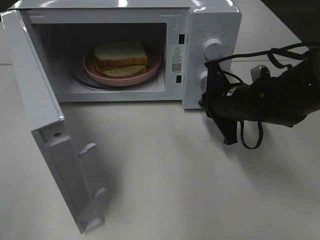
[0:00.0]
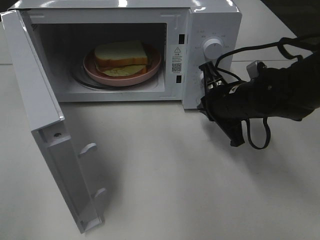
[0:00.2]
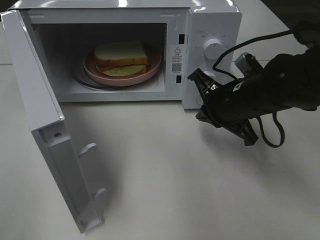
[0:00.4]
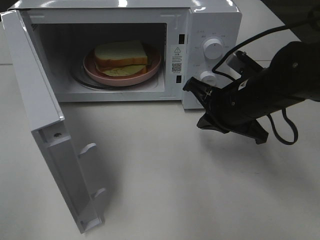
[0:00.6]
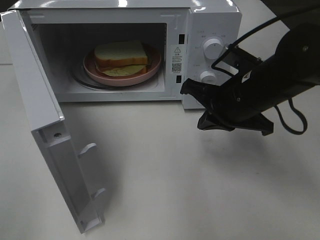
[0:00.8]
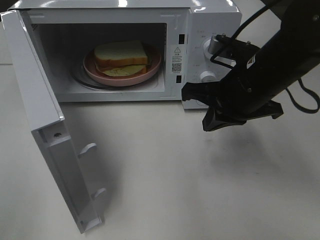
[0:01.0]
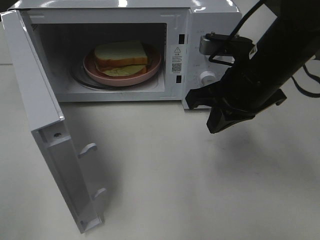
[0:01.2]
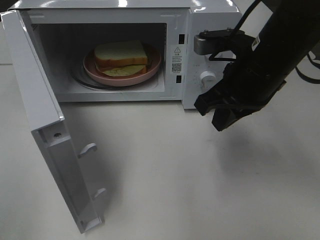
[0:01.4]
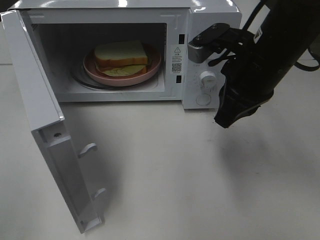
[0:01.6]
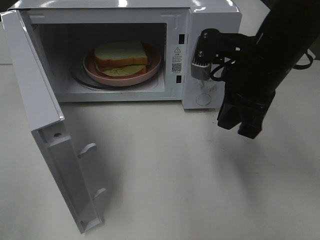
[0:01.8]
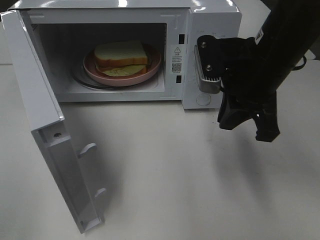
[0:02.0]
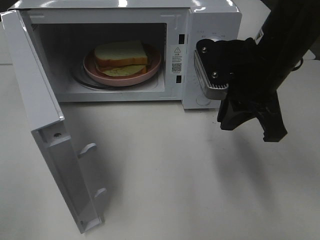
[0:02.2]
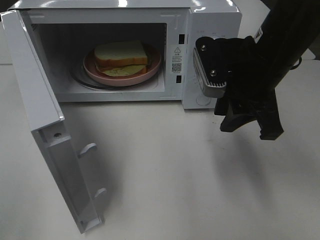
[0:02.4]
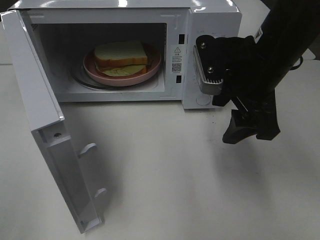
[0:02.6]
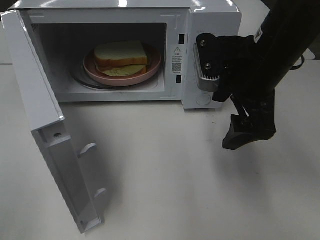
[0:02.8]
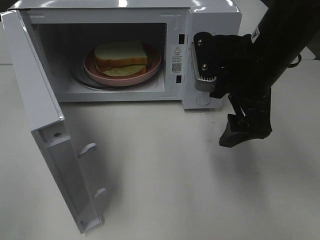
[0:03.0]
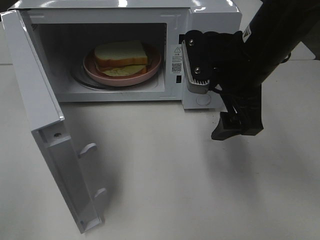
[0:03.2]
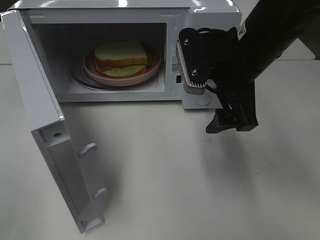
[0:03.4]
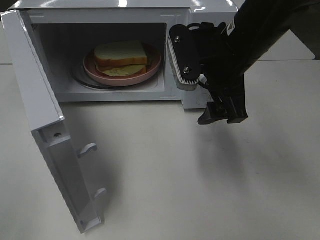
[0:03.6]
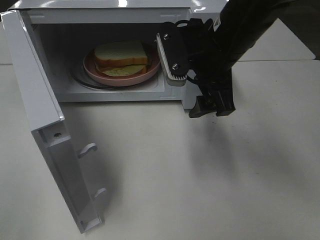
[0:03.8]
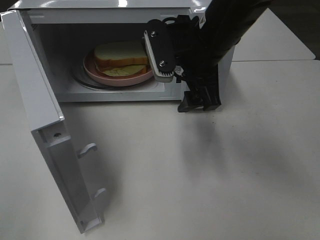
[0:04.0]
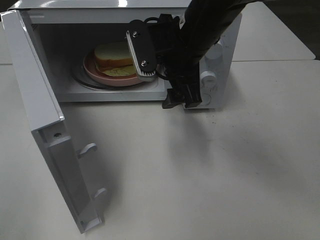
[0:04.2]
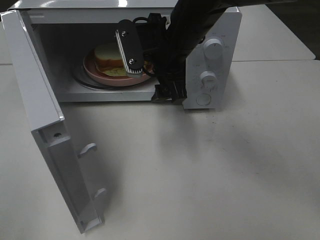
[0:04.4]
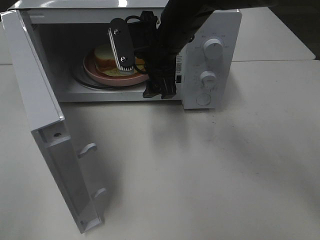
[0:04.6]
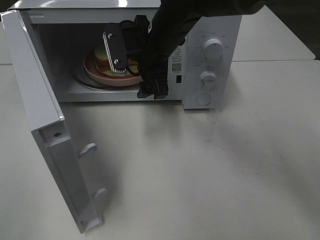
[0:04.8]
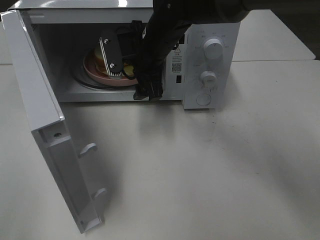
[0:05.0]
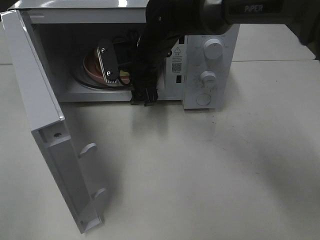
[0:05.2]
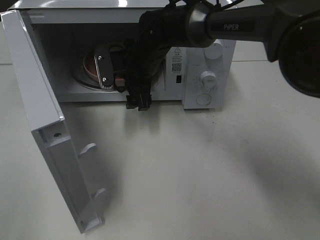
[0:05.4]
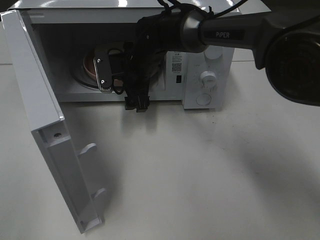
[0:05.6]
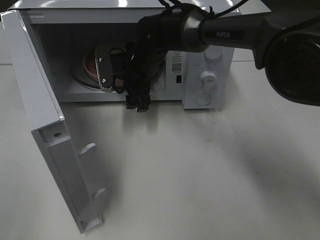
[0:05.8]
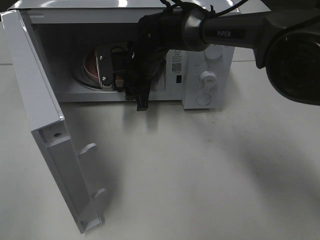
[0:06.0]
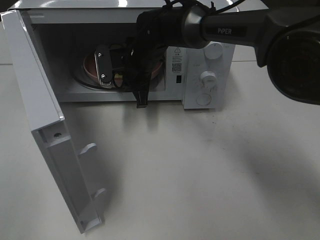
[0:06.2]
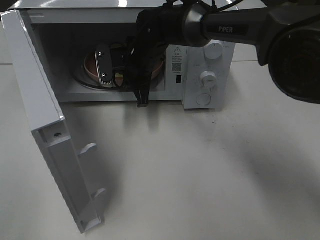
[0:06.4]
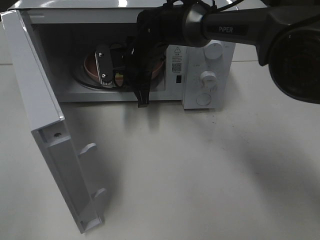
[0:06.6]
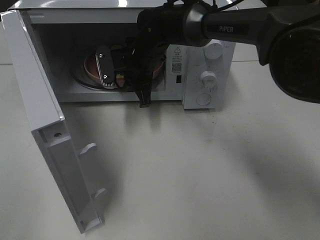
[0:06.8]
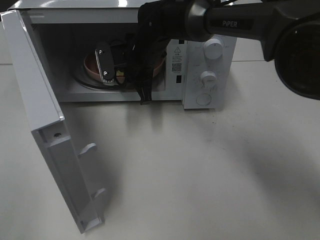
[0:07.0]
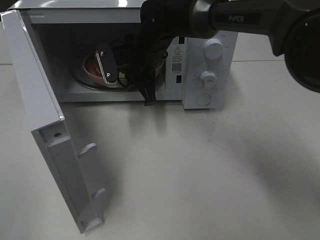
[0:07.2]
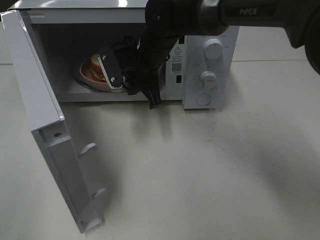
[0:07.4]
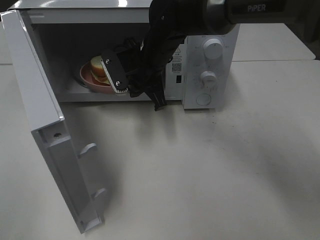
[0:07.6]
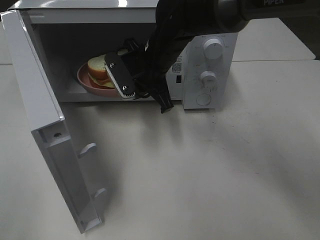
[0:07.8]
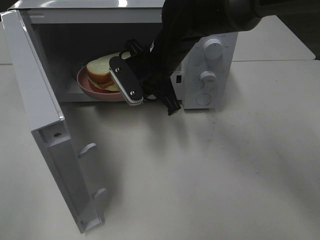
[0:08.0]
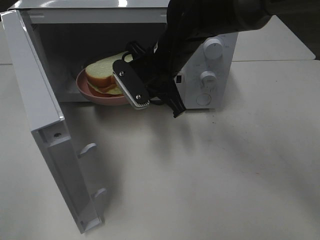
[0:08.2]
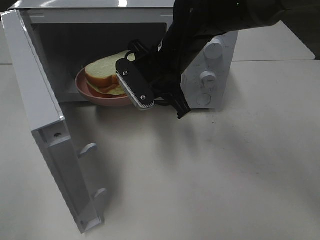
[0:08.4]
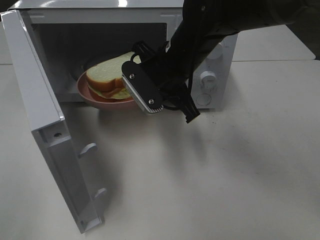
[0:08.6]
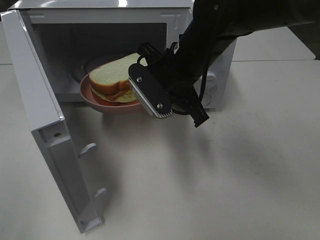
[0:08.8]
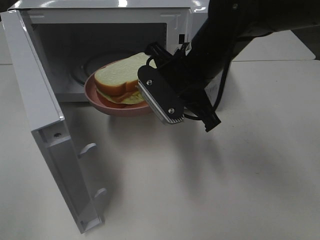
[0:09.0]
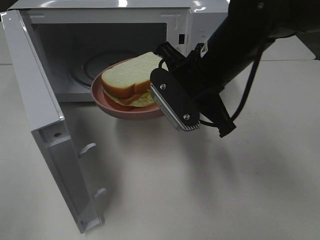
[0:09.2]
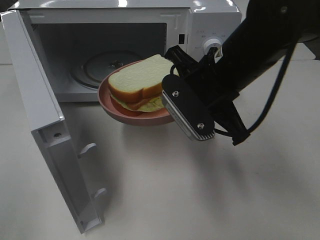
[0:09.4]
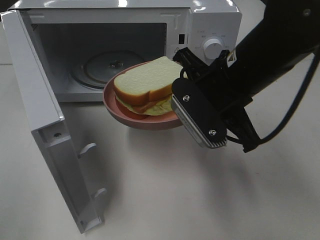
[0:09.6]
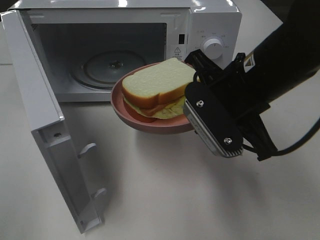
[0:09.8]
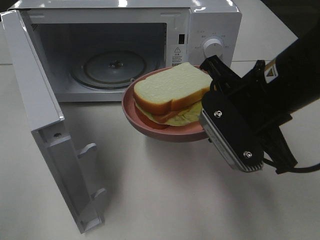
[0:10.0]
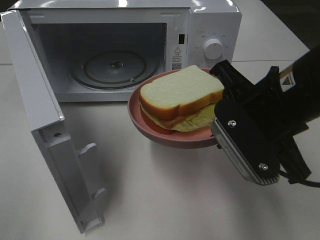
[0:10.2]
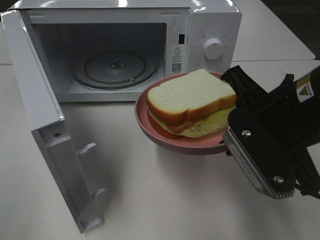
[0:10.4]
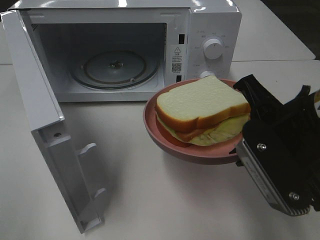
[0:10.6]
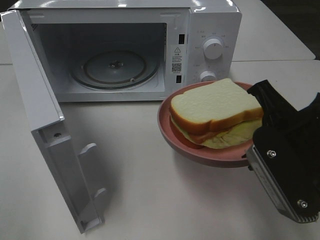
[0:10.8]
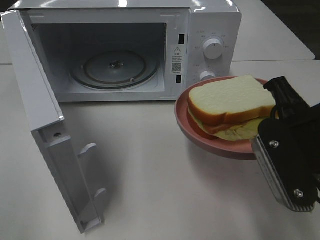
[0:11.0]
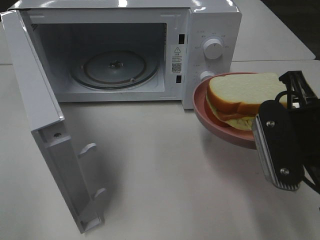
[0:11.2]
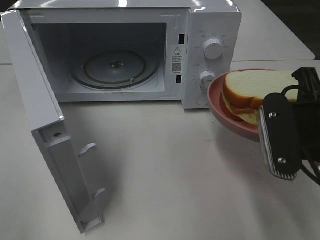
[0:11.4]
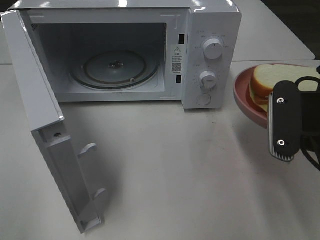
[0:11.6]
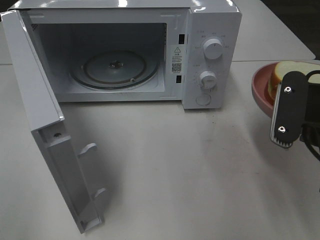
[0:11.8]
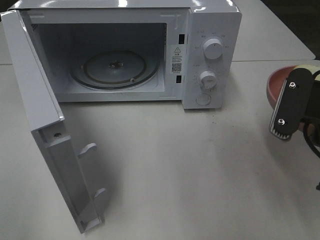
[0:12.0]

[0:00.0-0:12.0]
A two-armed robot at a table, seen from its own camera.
Task of the whole recording: Heat Sandwich.
Step, 0:00.2 to 0:06.6: Right hand: grab the plate with the sandwich.
0:00.0 to 0:01.6: The right gripper shifts approximately 10 cm upward.
0:01.6 to 0:03.0: The right gripper opens up.
0:03.0 to 0:04.4: The right gripper is displaced to the left and forward by about 10 cm.
0:04.4 to 0:06.0: The right gripper travels downward, forward and to the left by some 15 cm, and closes.
0:06.0 to 0:07.6: The right gripper moves some 5 cm, and closes up.
0:07.6 to 0:09.0: The right gripper goes about 10 cm backward and to the right.
0:09.0 to 0:10.4: The right gripper heads backward and to the right, covering some 15 cm.
0:10.4 to 0:12.0: The right gripper heads to the right, covering about 5 cm.

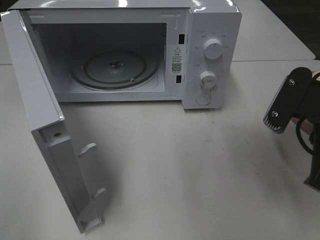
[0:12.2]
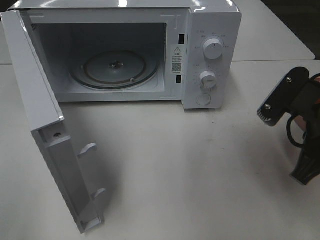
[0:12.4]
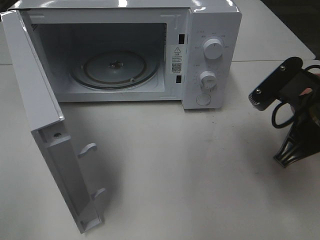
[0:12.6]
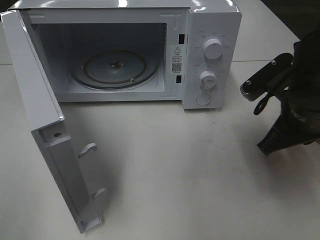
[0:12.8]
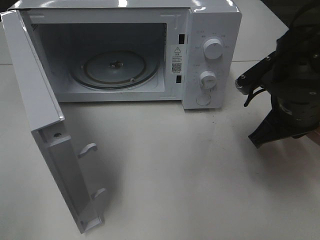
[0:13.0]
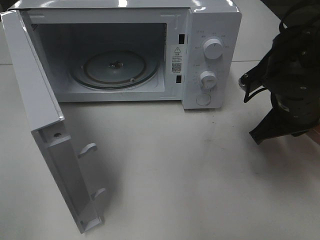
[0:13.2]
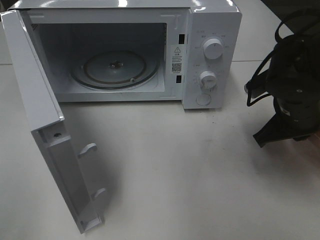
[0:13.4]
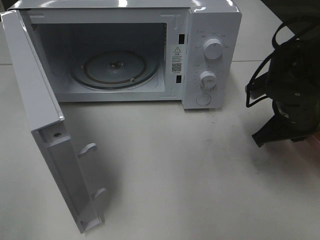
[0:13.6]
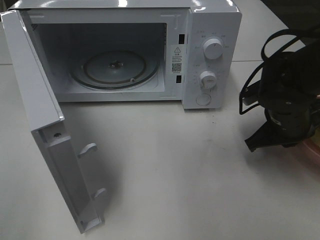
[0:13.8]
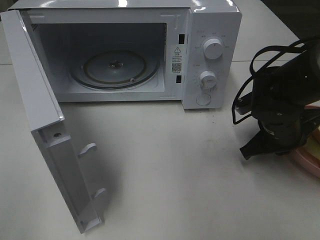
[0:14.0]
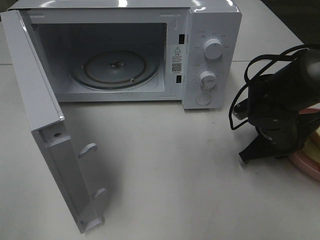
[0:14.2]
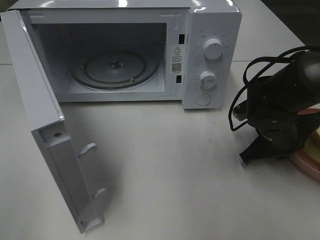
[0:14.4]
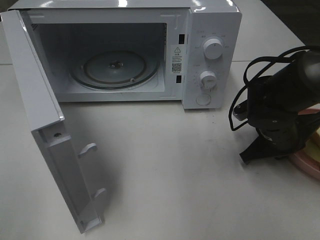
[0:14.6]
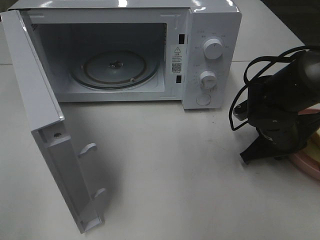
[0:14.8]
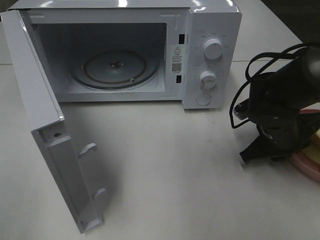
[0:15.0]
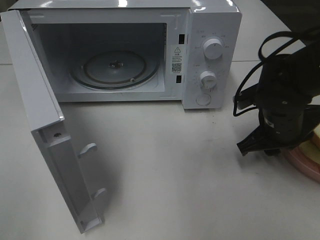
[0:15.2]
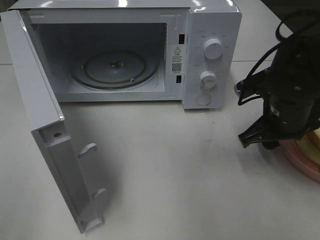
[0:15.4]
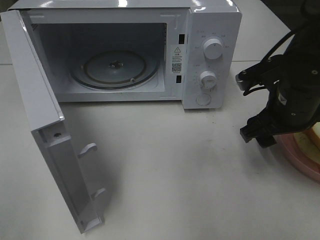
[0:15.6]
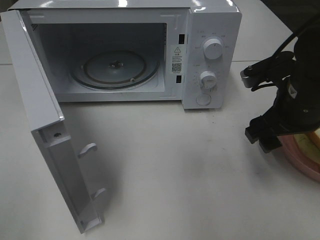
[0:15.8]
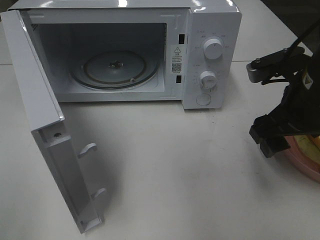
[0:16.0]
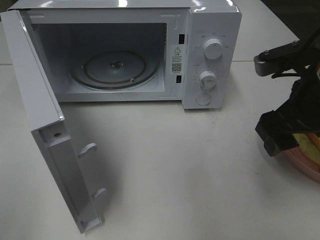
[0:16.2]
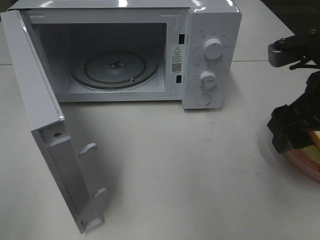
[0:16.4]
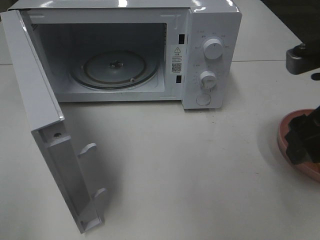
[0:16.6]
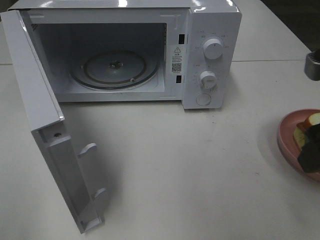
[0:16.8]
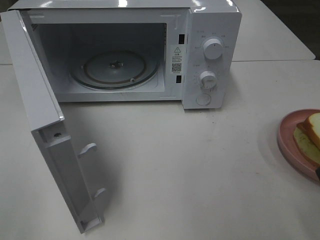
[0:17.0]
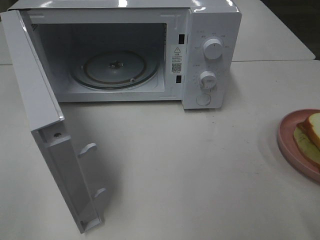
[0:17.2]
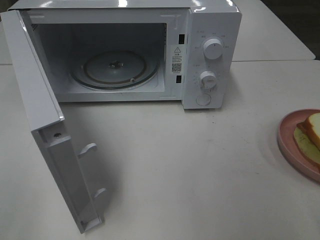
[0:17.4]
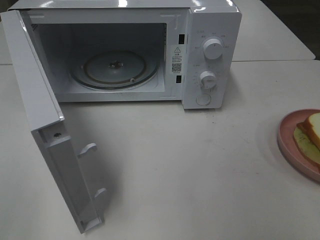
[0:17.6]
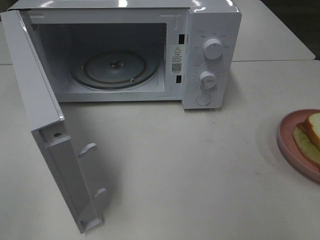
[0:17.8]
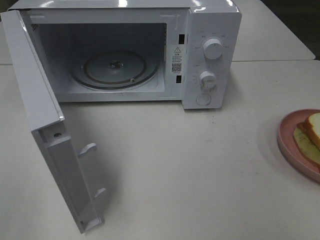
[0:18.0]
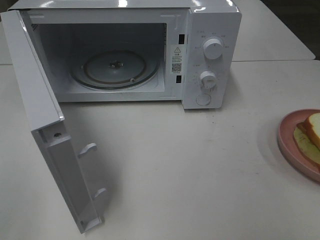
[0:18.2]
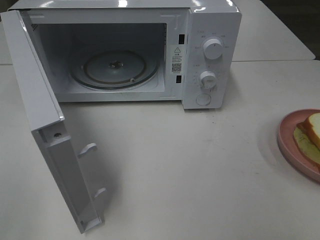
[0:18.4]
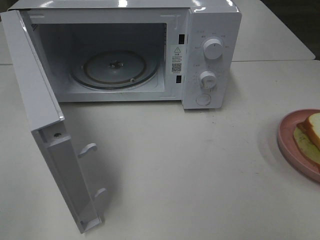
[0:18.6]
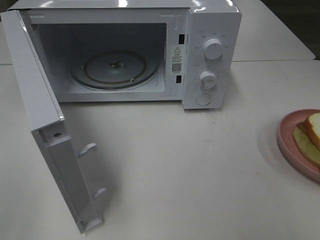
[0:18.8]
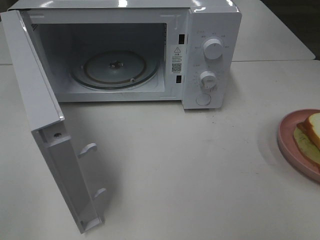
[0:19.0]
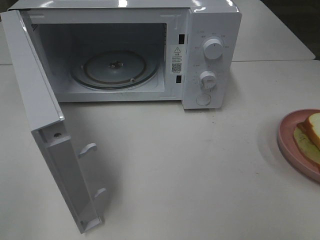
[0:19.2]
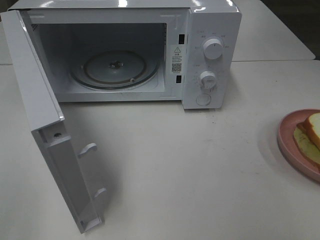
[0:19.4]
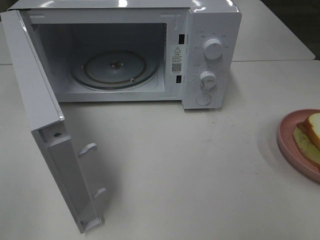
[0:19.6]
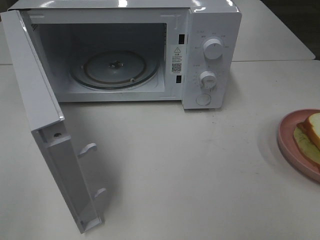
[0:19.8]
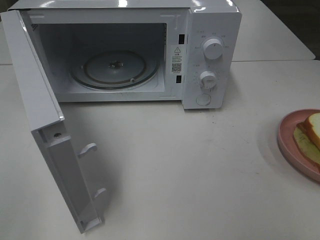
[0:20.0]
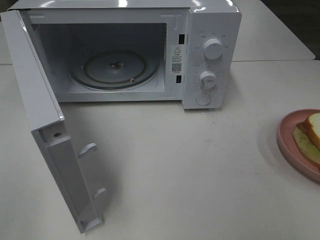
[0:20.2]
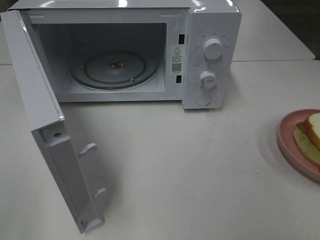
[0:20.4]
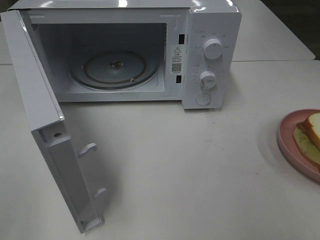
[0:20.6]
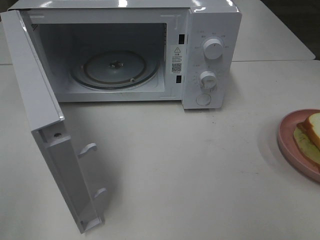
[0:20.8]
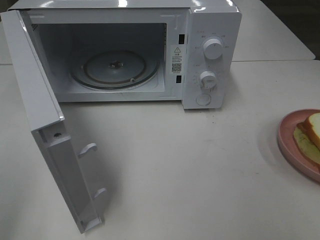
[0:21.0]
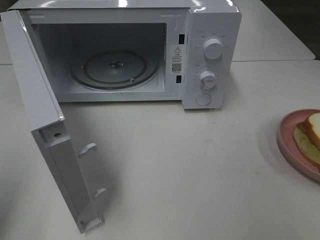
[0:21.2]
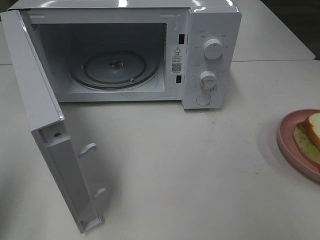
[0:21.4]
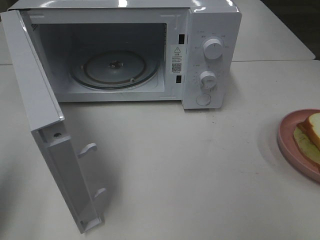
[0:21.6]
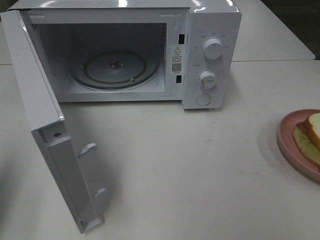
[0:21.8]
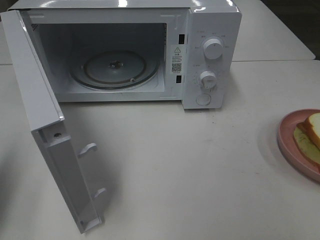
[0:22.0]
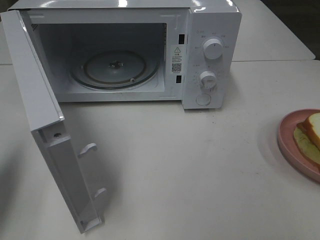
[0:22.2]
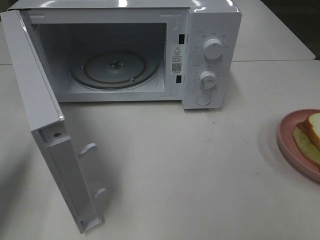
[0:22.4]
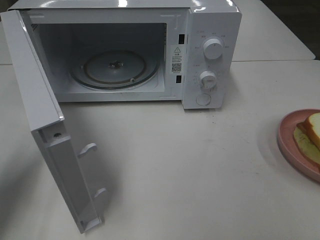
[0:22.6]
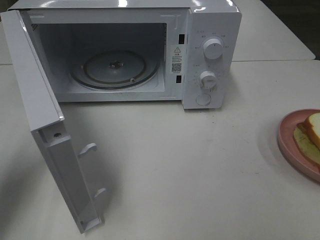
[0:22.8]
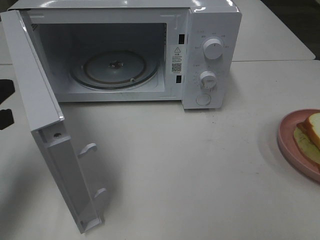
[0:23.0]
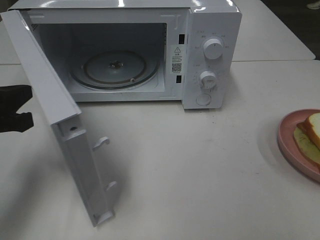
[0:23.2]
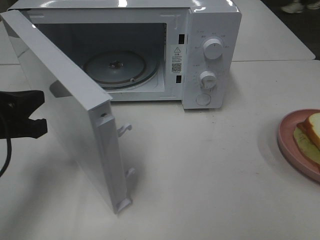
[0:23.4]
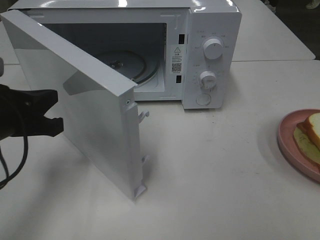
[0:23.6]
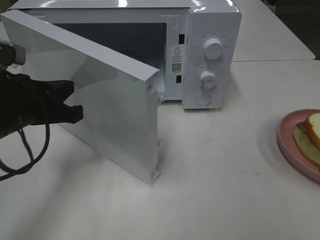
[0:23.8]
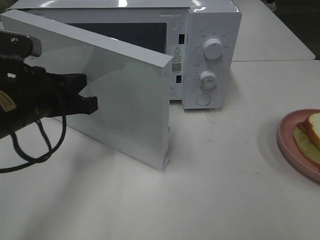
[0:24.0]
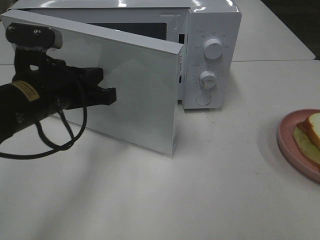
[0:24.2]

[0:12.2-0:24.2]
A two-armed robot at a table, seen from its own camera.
Task of the whole recording: Heat Sandwich.
Step, 0:12.2 to 0:16.2: Right hand: place the plate on the table.
0:12.2 to 0:13.8: The right gripper heads forward and downward, covering some 15 cm.
0:13.8 to 0:15.2: The right gripper opens its fingers.
0:15.2 to 0:16.6: The right gripper moves upward and backward, roughly 15 cm, and opens its fingers.
0:16.6 to 0:18.2: The right gripper is displaced backward by roughly 20 cm.
0:18.2 to 0:19.8: Neither gripper changes place.
0:21.2 to 0:22.6: The left gripper heads forward and downward, covering some 15 cm.
0:22.6 to 0:24.2: The left gripper shifts some 15 cm to the right and forward.
